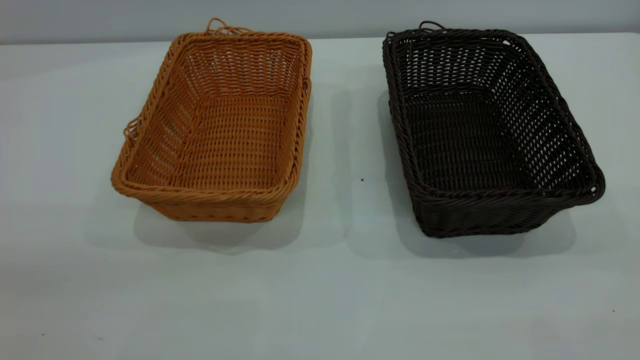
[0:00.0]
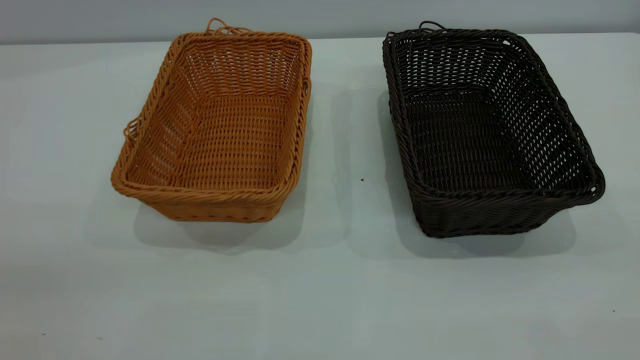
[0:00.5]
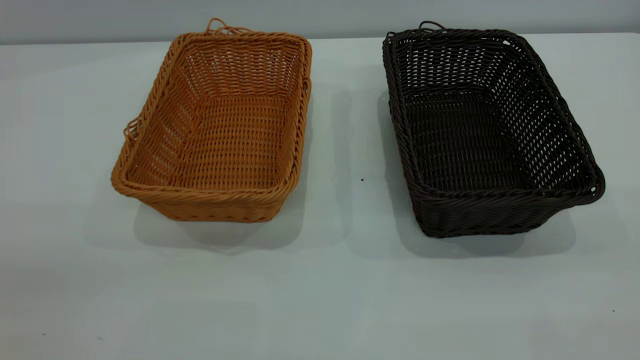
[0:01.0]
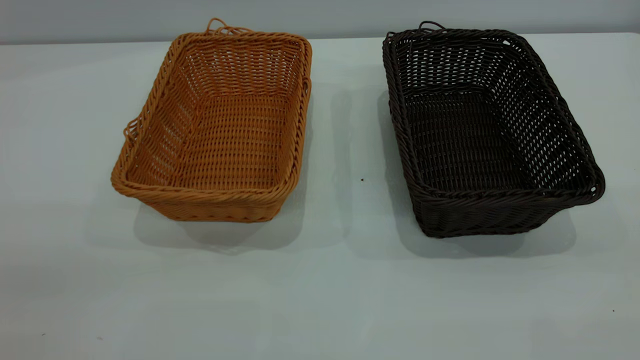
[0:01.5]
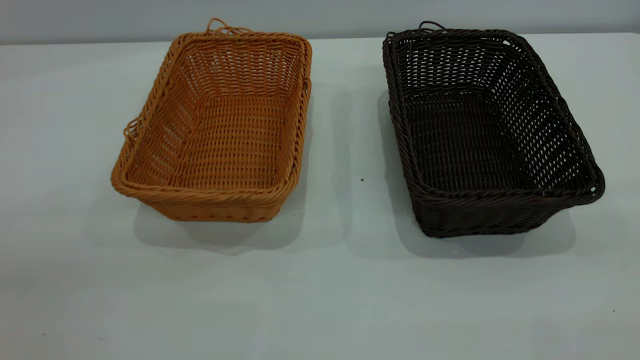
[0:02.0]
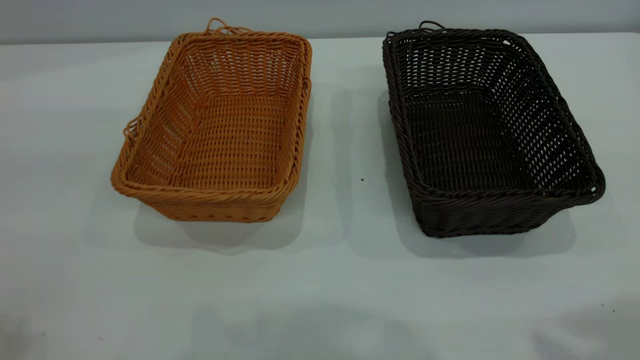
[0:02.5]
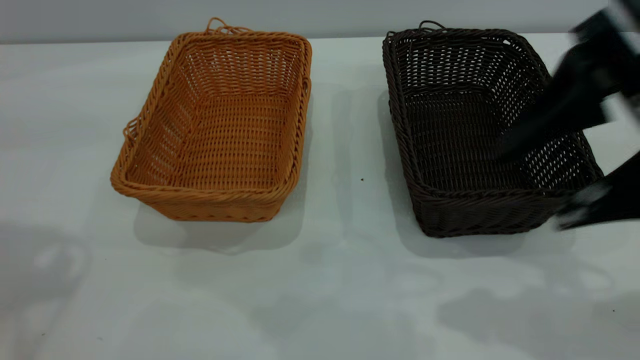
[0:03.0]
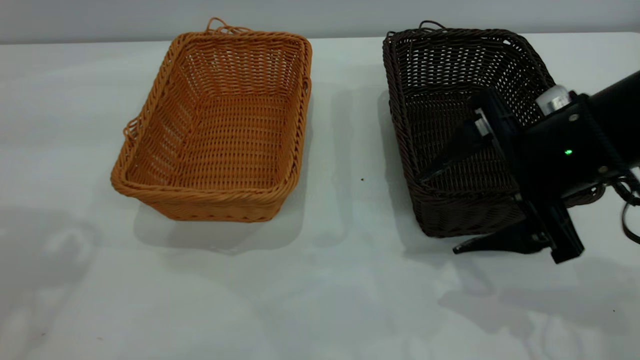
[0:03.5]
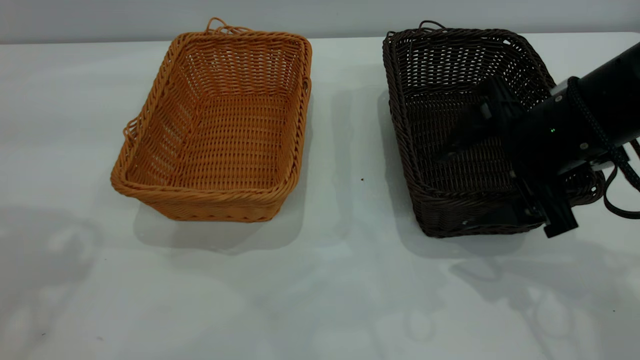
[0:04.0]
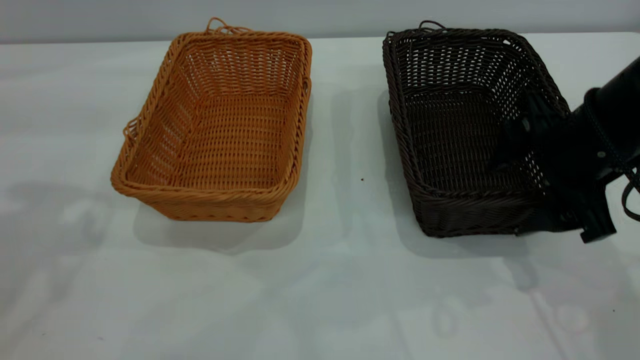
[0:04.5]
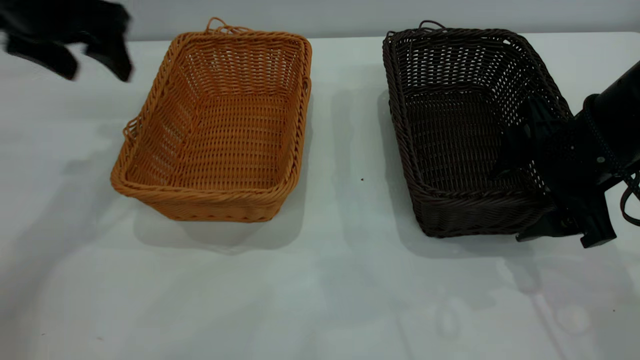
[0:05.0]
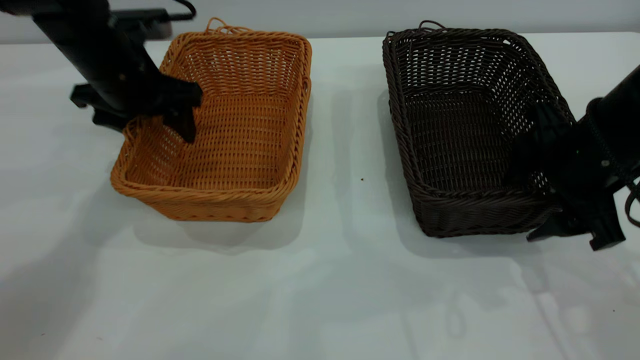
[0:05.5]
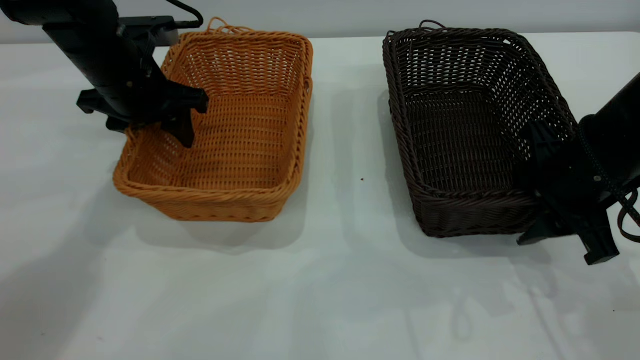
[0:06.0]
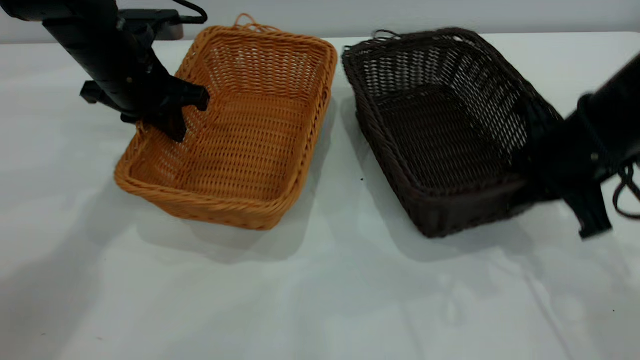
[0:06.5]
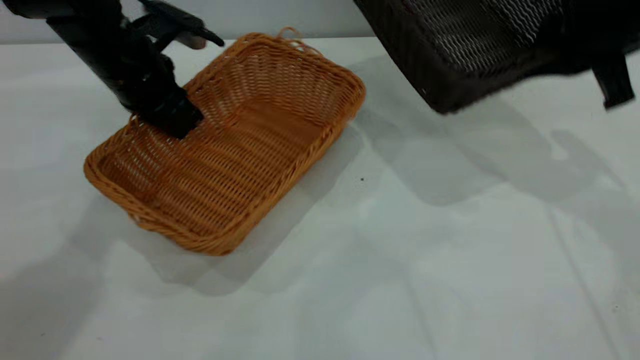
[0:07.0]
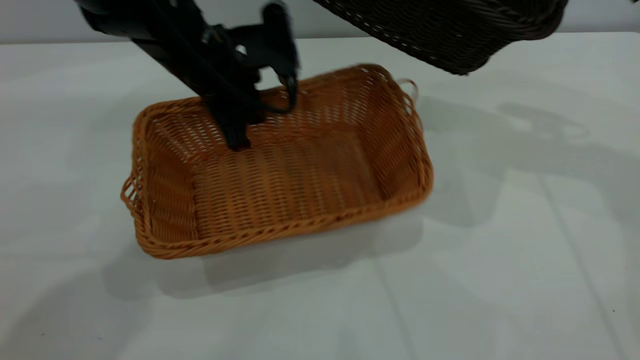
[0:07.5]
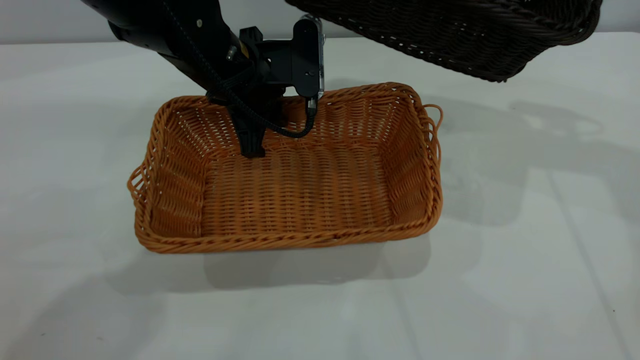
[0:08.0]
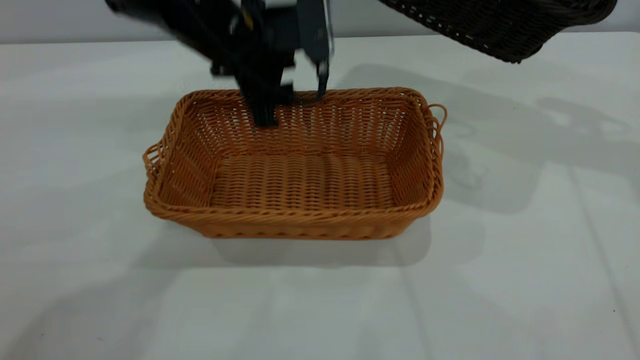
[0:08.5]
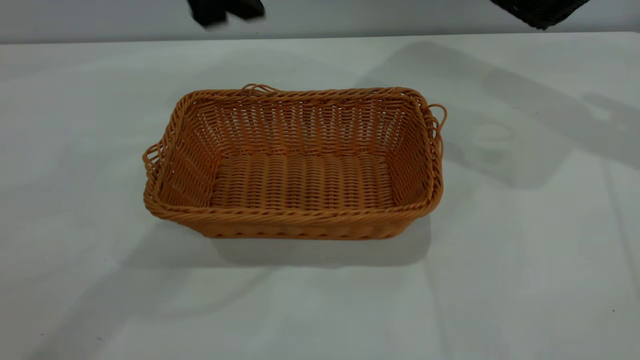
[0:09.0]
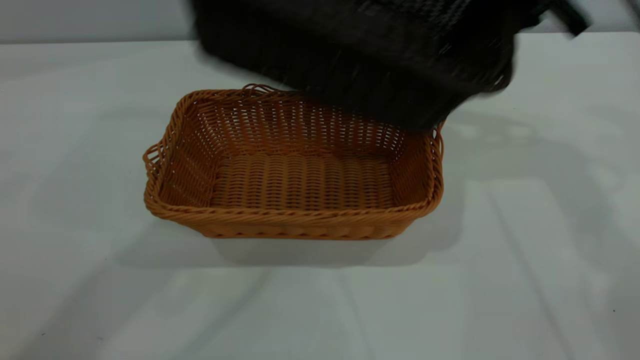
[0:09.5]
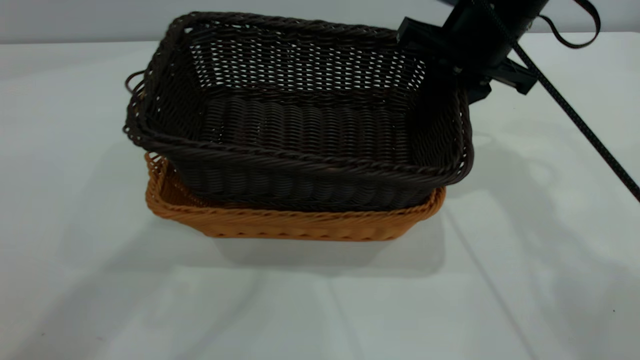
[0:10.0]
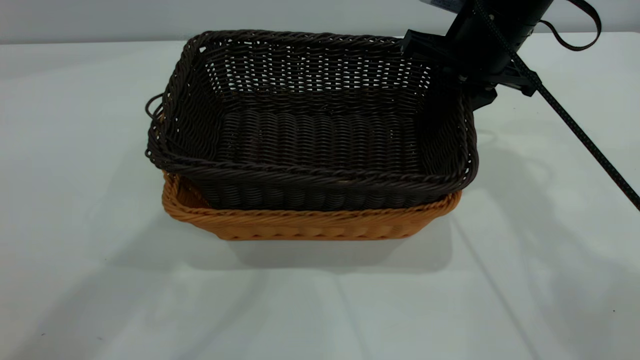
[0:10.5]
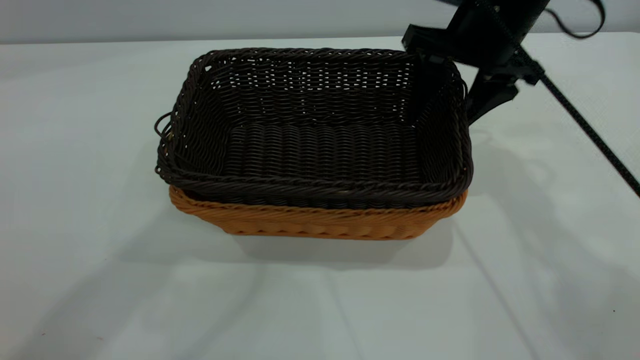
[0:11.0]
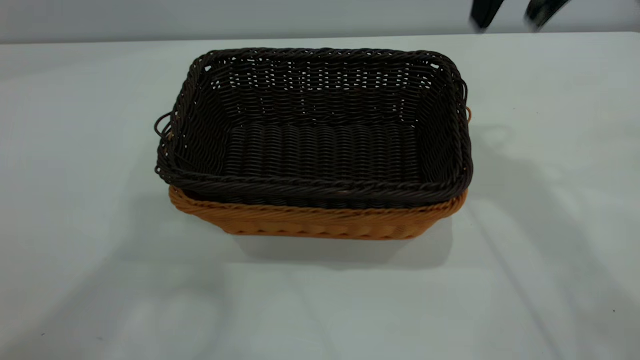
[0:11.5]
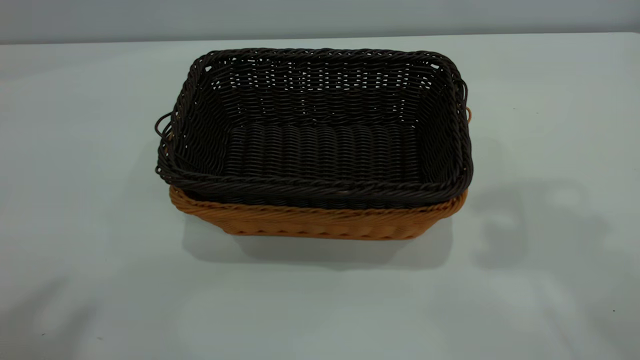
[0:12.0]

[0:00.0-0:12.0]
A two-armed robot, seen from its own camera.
Task of the whole recording: the left gripper grasp the brown basket and place it in the center of the table, the right gripper grasp the black basket and place it inside the brown one.
Step, 0:00.0 to 0:06.5: Pick up the light basket with the right gripper.
Step, 0:07.0 to 0:08.5: Place the light-colored basket in the center.
Step, 0:09.0 to 0:11.0: Place the dark basket on top of the light basket.
0:02.0 to 0:04.0: The right gripper is displaced forward and downward by about 35 cm.
0:04.0 to 0:06.0: The right gripper closes up, while the left gripper heads downward, forward and to the right, covering roughly 30 cm, and closes its fingers.
0:06.0 to 0:08.0: The left gripper travels to the right by about 10 cm, and closes its fingers, while the right gripper is displaced upward and forward by about 20 cm, and closes its fingers.
0:08.0 to 0:10.0: The left gripper goes some 35 cm upward, and opens up. The right gripper heads to the left and downward, covering about 15 cm.
0:10.0 to 0:12.0: The right gripper travels upward and backward by roughly 35 cm, and opens. Meanwhile the left gripper goes some 20 cm backward, to the left and upward.
